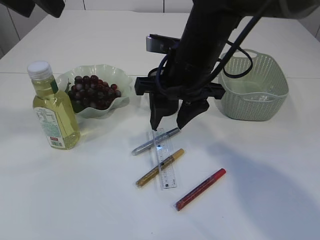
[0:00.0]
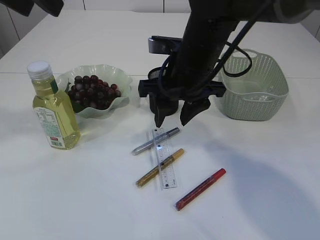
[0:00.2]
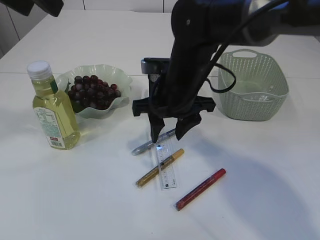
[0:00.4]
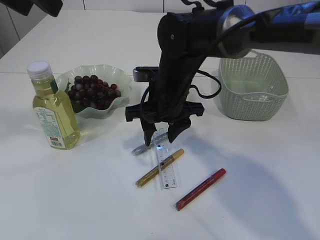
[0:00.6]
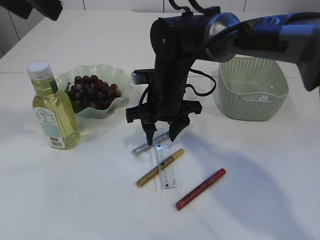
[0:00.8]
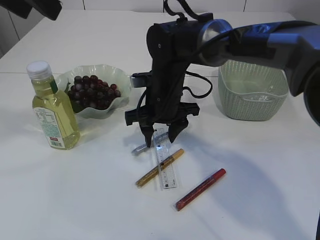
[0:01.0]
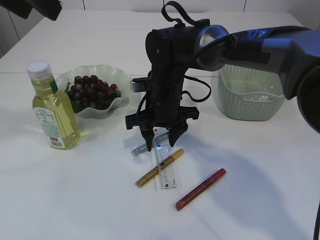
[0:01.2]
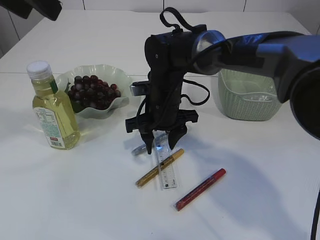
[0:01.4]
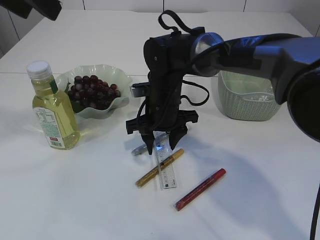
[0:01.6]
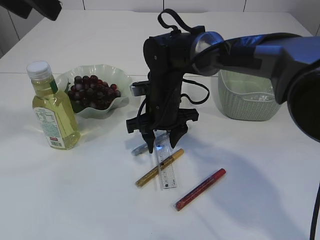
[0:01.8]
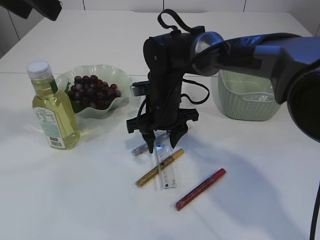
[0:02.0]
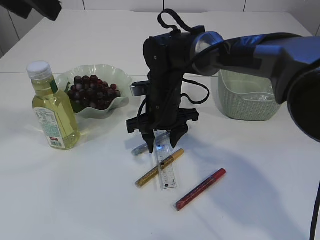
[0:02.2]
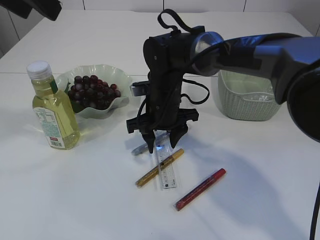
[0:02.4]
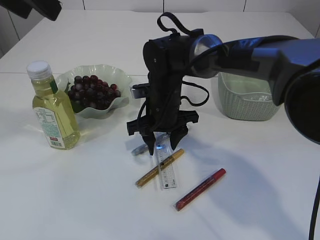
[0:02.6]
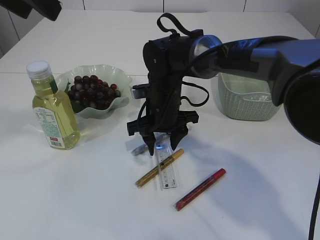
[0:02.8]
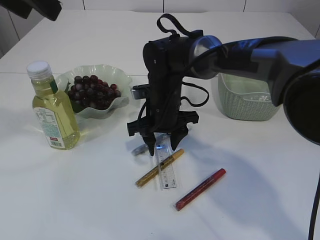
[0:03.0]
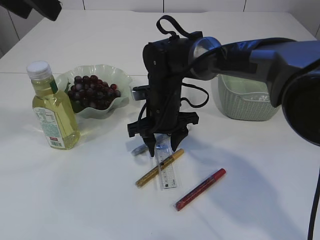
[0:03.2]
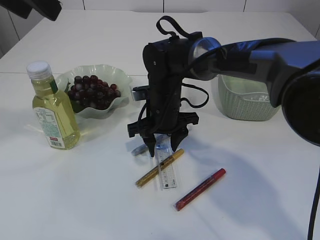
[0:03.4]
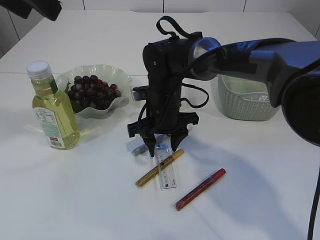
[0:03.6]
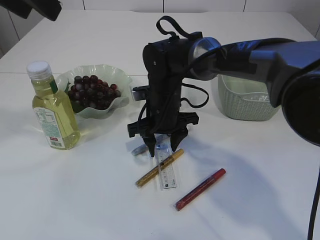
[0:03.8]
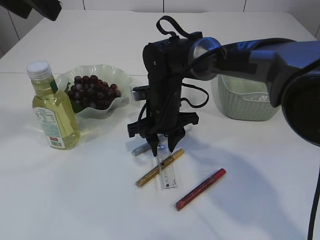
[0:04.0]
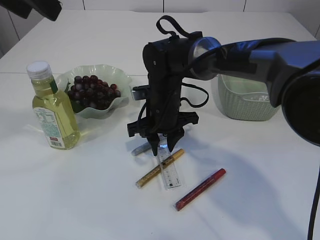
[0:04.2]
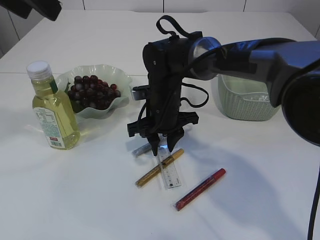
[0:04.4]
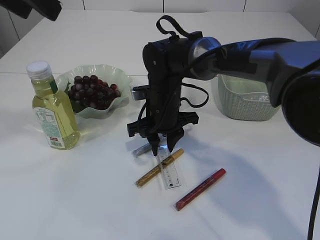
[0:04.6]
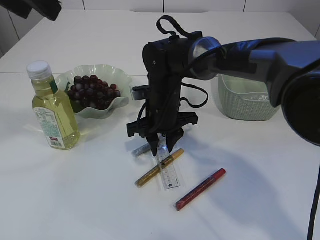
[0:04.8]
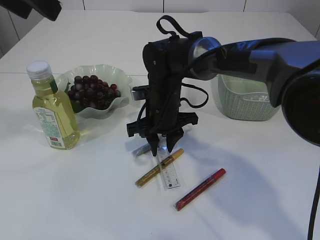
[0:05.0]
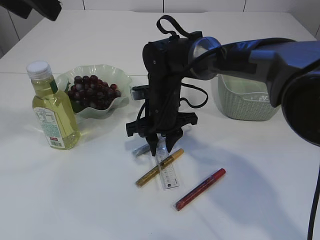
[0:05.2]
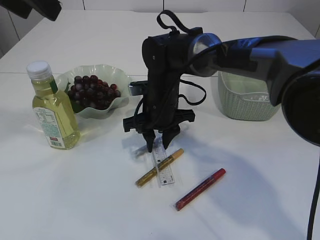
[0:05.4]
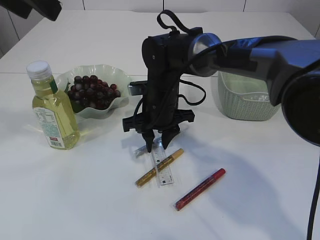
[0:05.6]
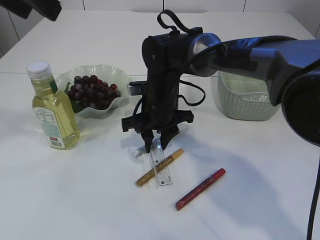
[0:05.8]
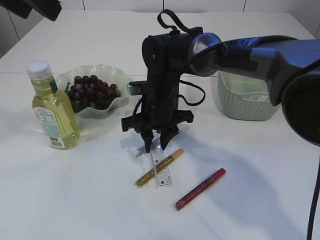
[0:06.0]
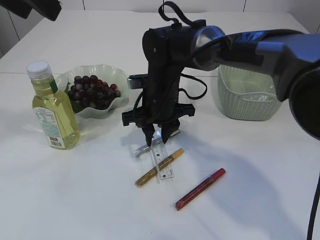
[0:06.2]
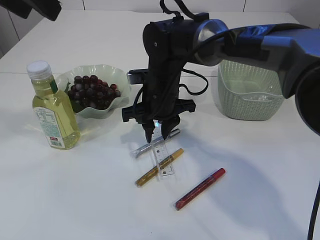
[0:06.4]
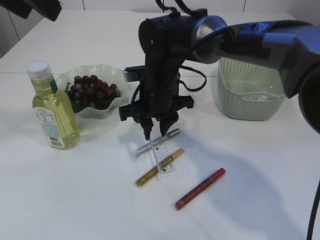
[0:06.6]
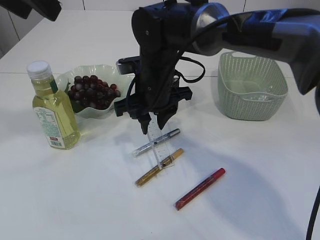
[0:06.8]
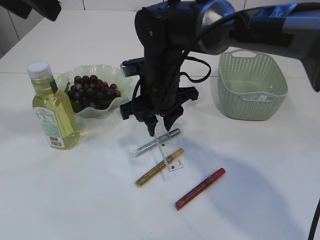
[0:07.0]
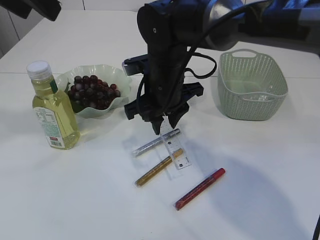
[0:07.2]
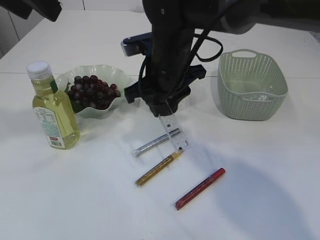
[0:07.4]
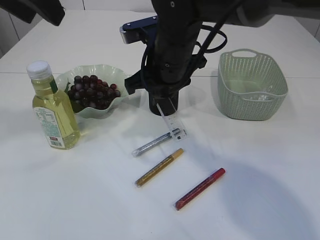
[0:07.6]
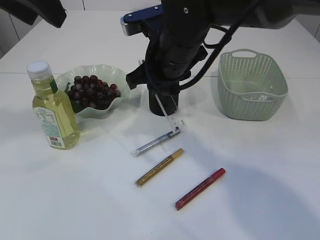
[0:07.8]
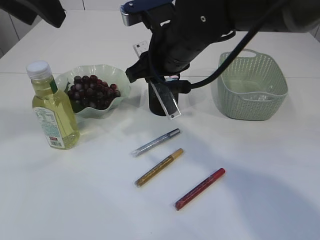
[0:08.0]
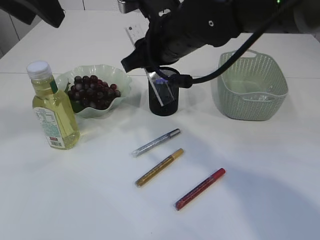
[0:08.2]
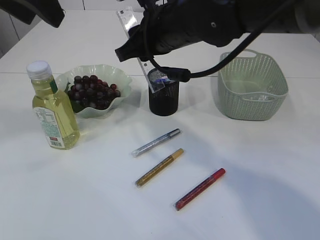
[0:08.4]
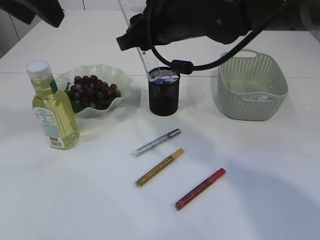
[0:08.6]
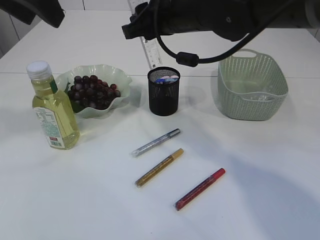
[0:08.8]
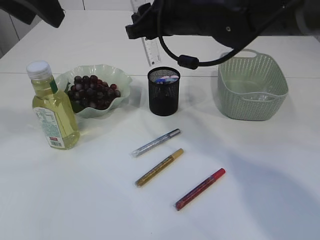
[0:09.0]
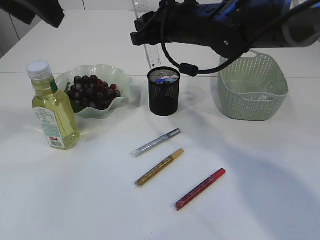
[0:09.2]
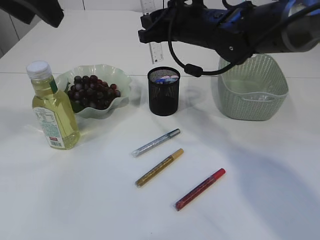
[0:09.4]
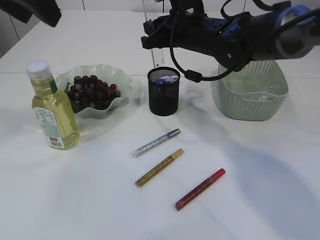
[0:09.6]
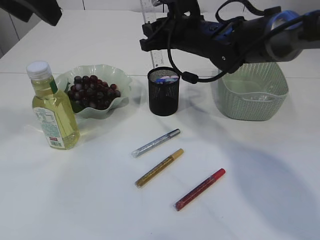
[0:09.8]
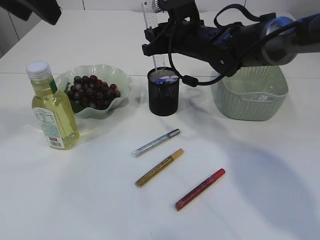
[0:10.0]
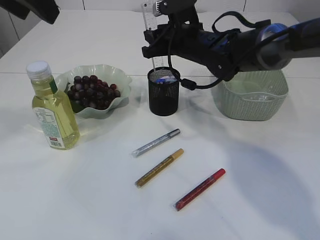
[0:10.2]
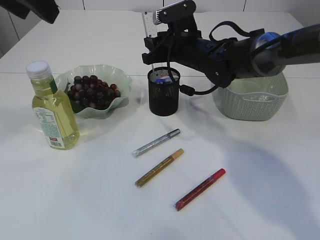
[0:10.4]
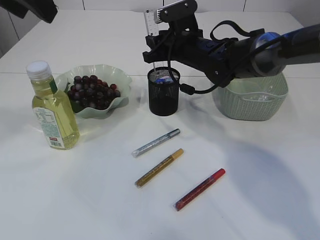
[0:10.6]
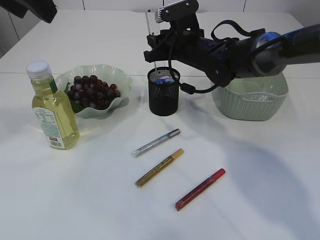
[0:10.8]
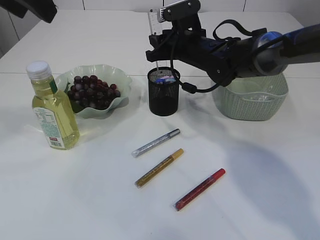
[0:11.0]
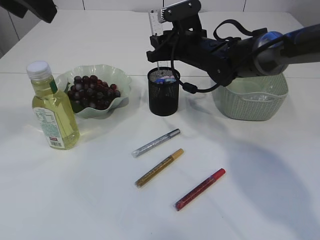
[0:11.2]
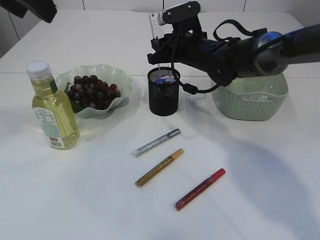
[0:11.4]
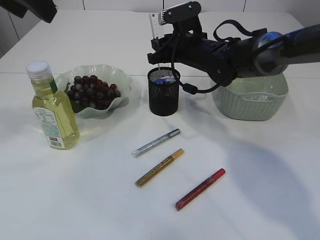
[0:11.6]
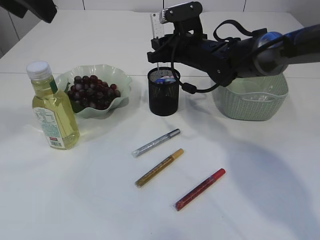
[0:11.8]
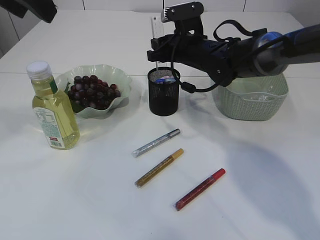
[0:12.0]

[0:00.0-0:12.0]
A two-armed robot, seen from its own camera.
Step, 0:00.0 to 0:06.8: pick up the ruler.
0:00.0 to 0:01.6: The right gripper travels downward and forward by about 15 cm.
0:01.6 to 0:06.0: Both grippers stay about where they are.
0:06.0 to 0:07.6: The right gripper shifts roughly 10 cm upward.
0:07.6 to 0:09.0: The right gripper changes place by approximately 5 cm.
0:09.0 to 0:10.4: The right gripper is displaced downward and forward by roughly 10 cm.
0:10.4 to 0:12.0: There are only small adjustments of the grippers.

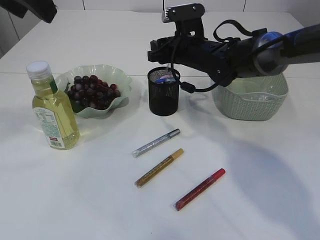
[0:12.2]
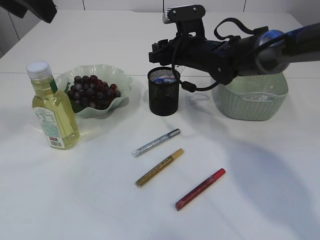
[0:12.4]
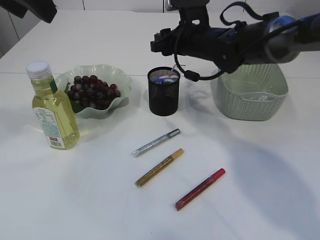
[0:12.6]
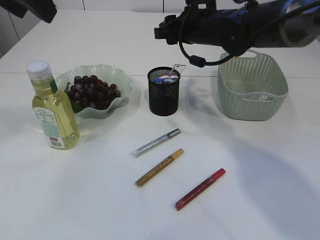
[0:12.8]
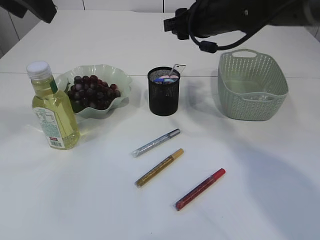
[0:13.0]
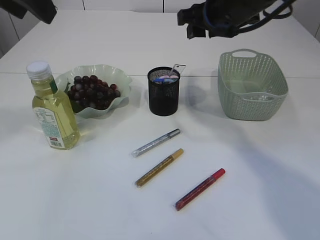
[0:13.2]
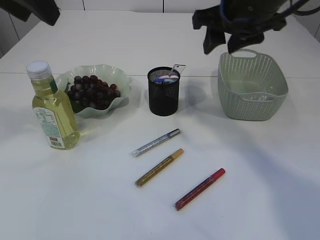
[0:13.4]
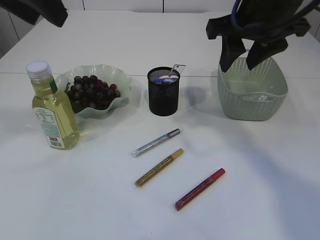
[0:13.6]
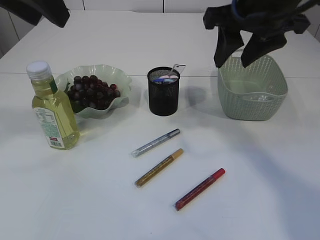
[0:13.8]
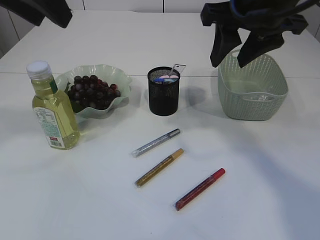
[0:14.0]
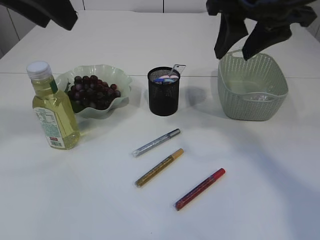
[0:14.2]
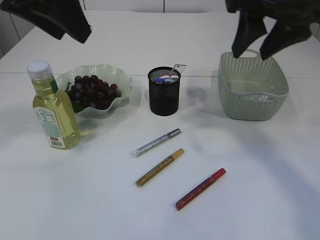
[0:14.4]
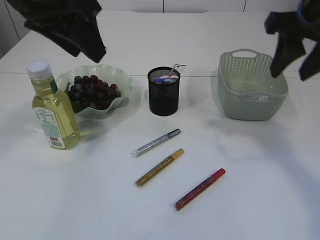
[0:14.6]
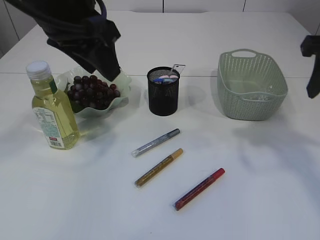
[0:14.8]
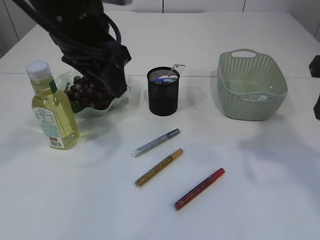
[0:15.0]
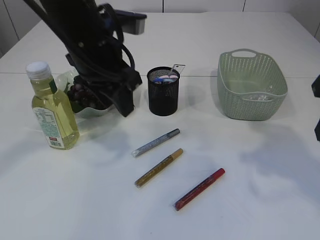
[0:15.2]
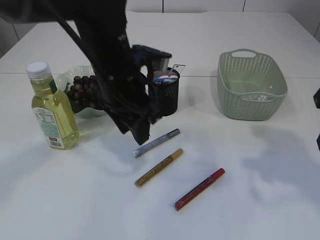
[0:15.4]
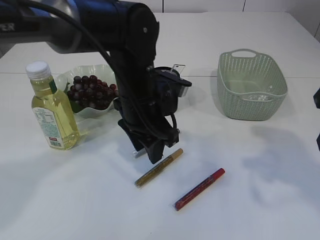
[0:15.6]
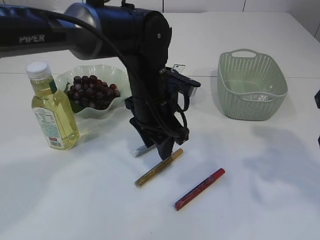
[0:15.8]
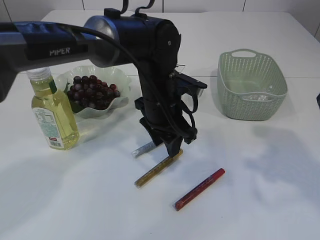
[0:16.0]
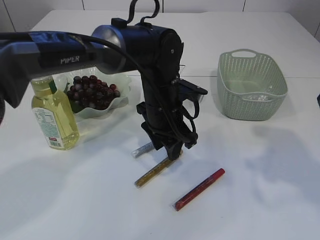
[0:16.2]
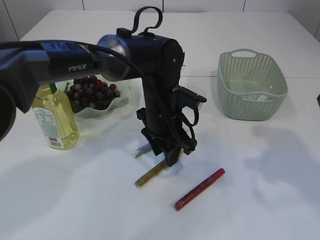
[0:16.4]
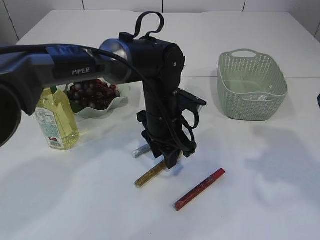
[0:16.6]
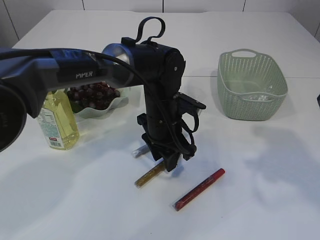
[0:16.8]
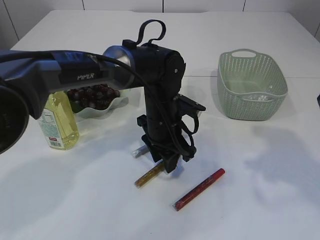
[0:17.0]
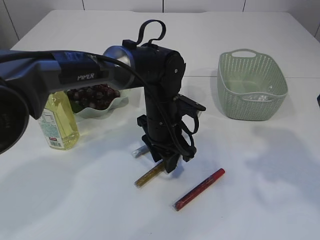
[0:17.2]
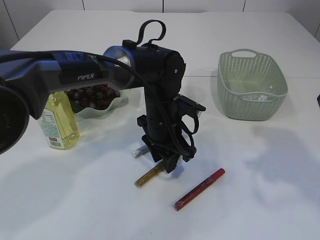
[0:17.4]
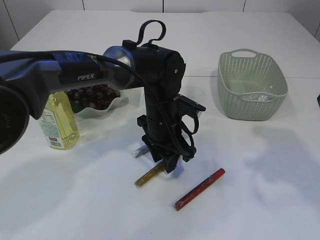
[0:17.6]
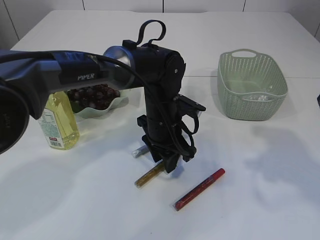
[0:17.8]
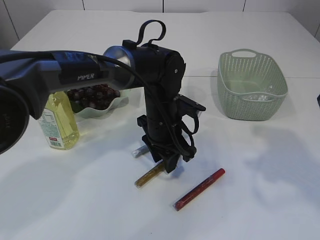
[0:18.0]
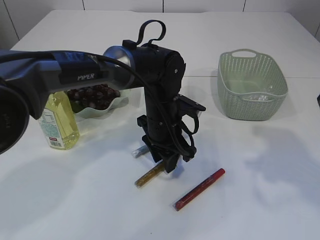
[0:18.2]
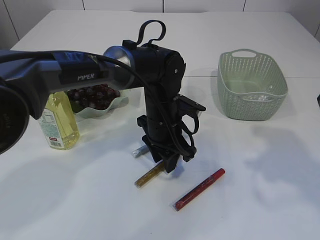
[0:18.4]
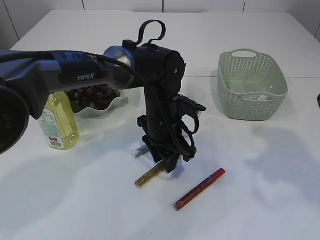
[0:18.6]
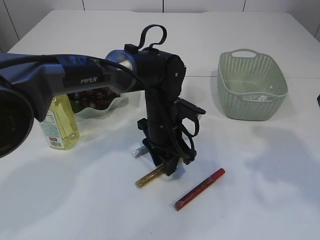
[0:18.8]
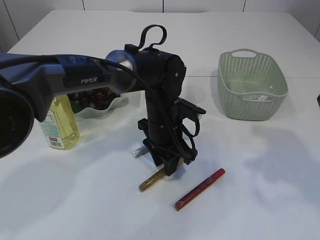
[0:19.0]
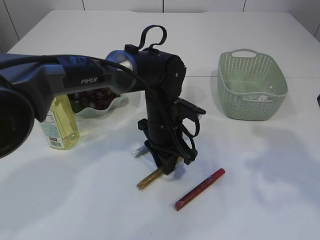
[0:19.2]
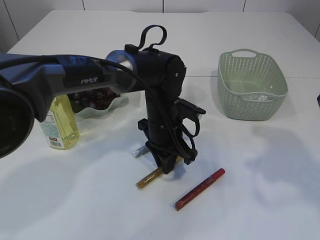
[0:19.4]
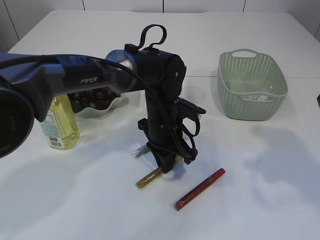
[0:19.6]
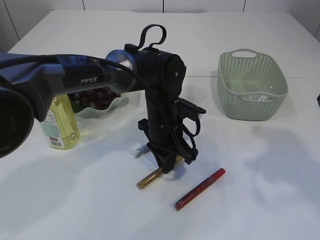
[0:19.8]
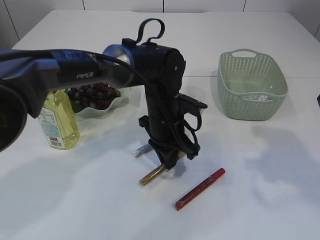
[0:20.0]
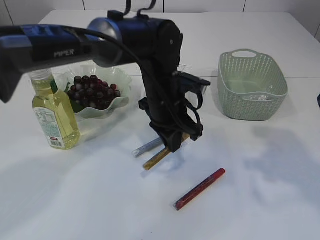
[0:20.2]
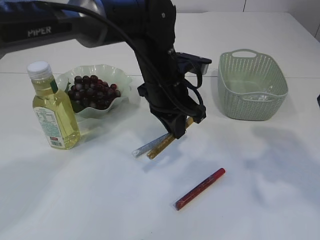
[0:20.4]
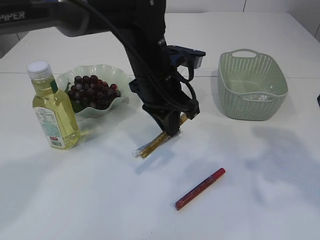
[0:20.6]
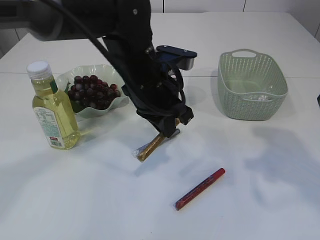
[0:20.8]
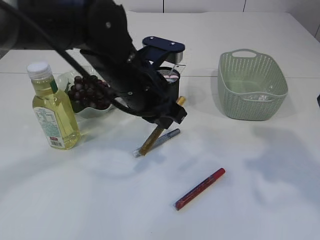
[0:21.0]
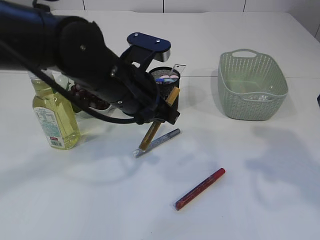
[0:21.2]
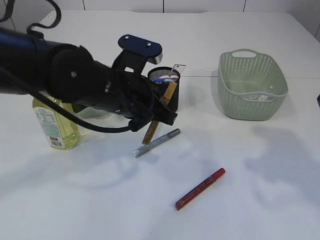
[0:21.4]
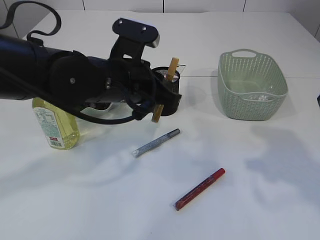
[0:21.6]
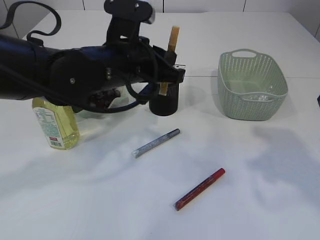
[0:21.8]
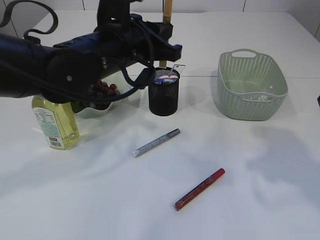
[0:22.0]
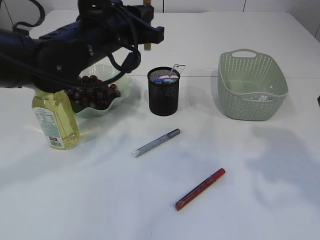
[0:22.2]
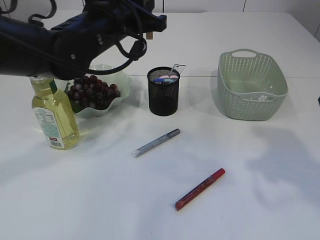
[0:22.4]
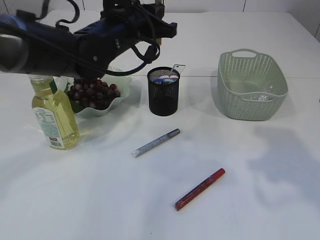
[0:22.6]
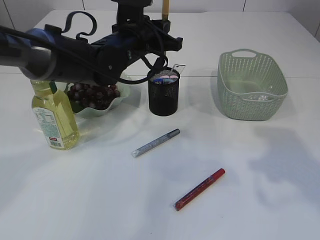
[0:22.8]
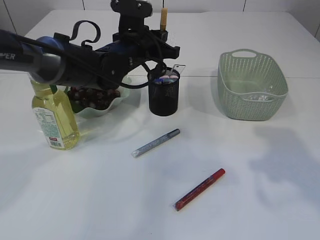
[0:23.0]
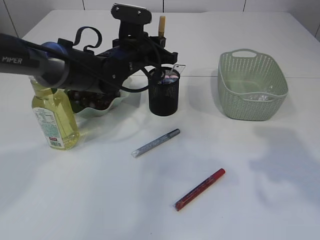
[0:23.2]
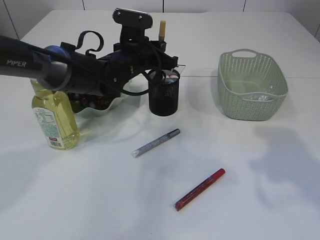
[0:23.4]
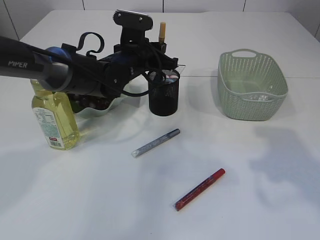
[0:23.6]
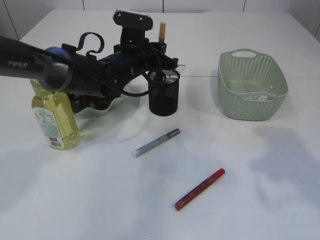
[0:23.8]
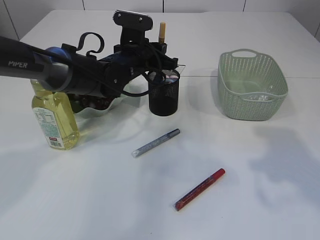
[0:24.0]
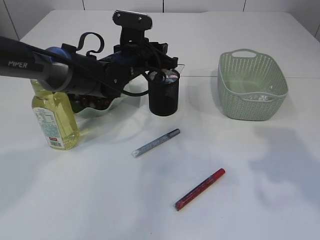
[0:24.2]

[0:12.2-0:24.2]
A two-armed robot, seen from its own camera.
Step, 0:12.8 to 0:20.4: pick up the yellow glue.
0:12.2 to 0:13.8: The right gripper heads upward and backward, covering approximately 20 cm.
0:13.8 to 0:15.2: The right gripper moves to the right and backward, some 15 cm, while the left gripper goes about 15 cm downward, to the right and forward.
0:15.2 to 0:16.6: The left gripper heads downward and to the right, covering roughly 20 cm.
0:16.6 to 0:18.2: Both grippers stay about where they are.
0:18.2 to 0:19.8: The left gripper closes.
0:19.8 to 0:21.2: The left gripper heads upward, to the left and backward, covering about 15 cm.
0:21.2 to 0:22.6: The left gripper goes some 10 cm forward.
0:22.6 to 0:24.2: The left gripper goes approximately 10 cm downward.
